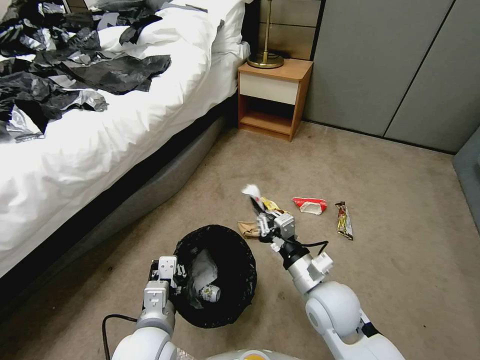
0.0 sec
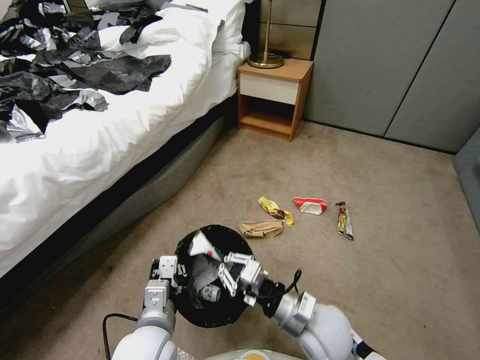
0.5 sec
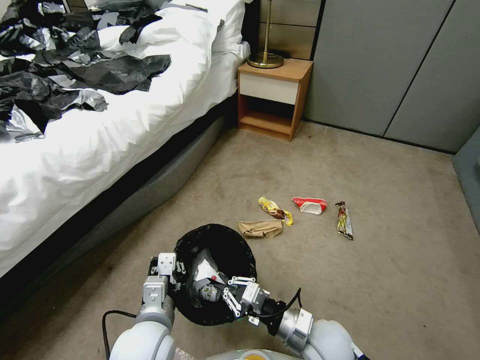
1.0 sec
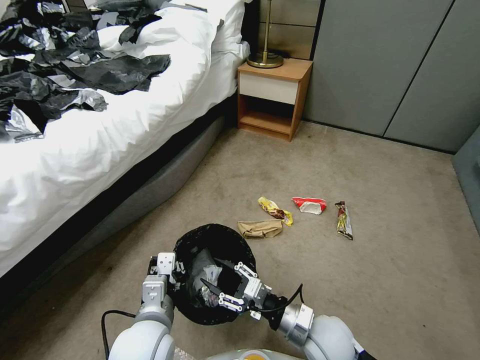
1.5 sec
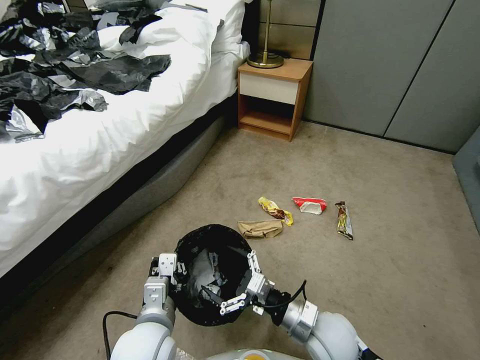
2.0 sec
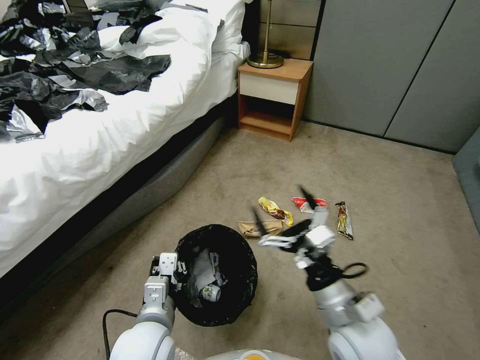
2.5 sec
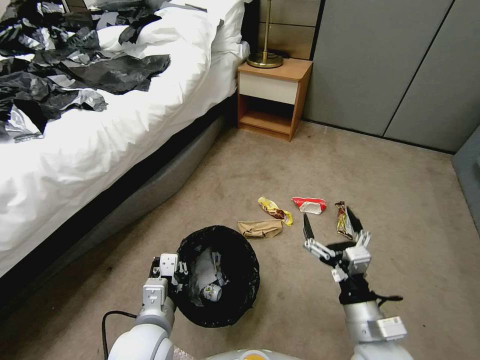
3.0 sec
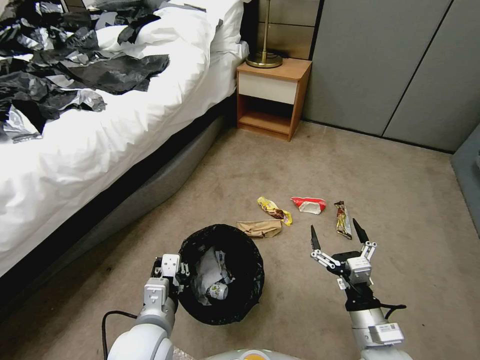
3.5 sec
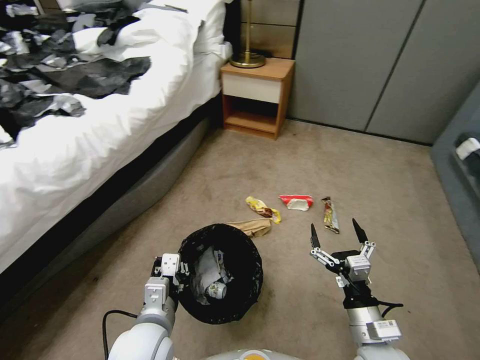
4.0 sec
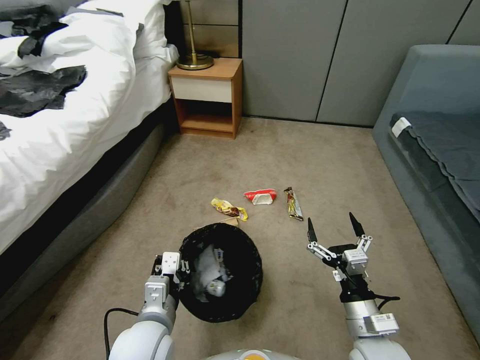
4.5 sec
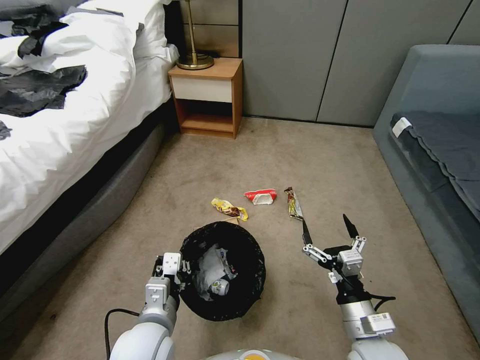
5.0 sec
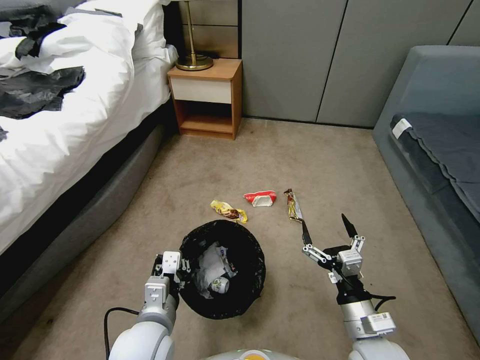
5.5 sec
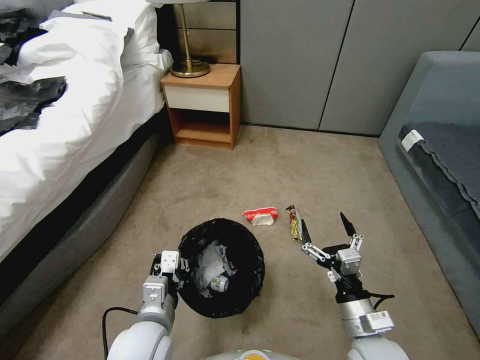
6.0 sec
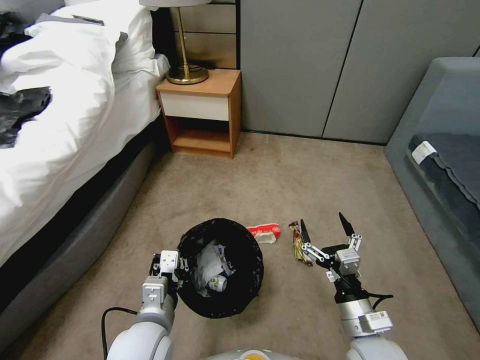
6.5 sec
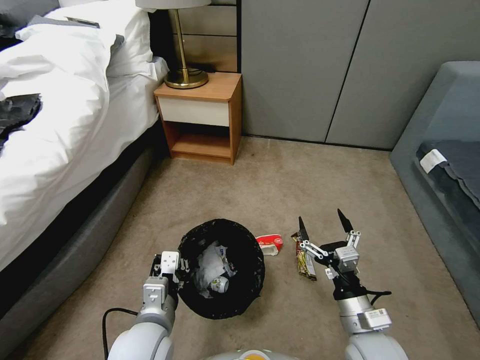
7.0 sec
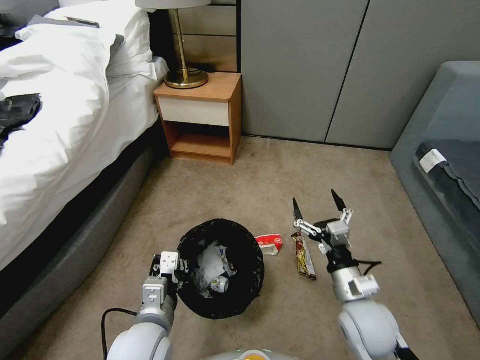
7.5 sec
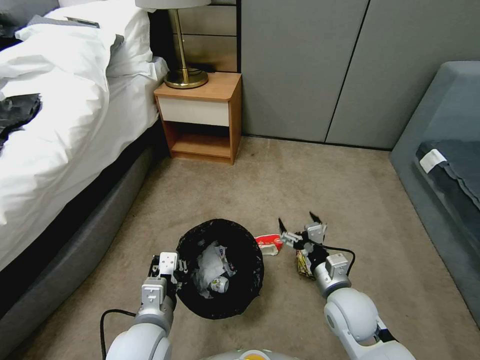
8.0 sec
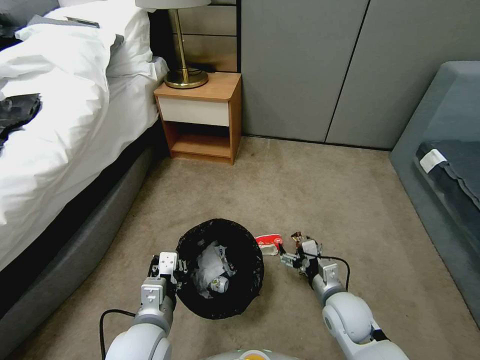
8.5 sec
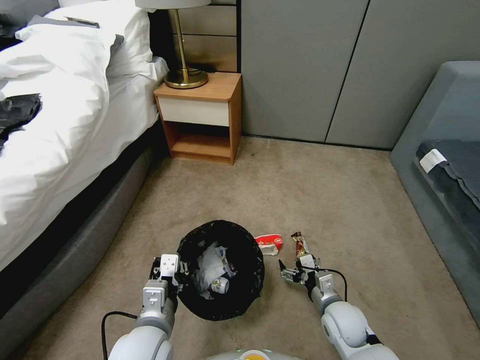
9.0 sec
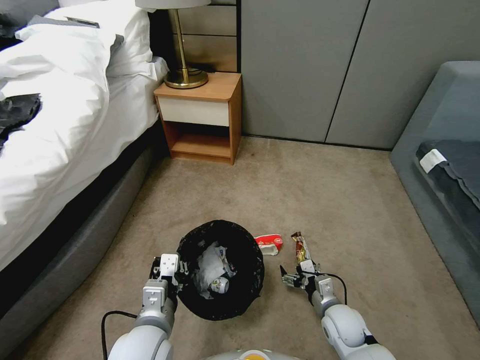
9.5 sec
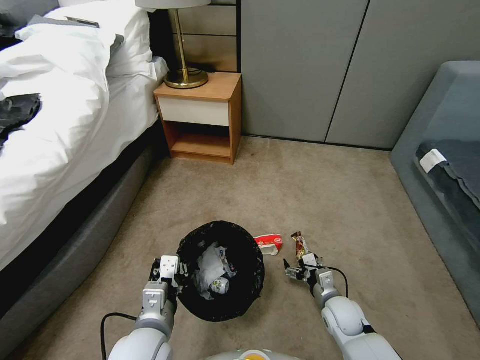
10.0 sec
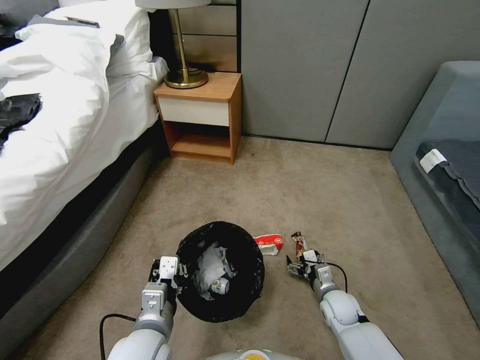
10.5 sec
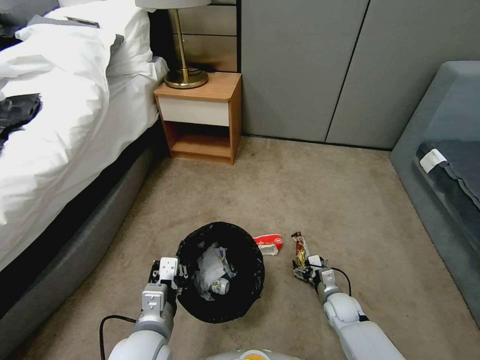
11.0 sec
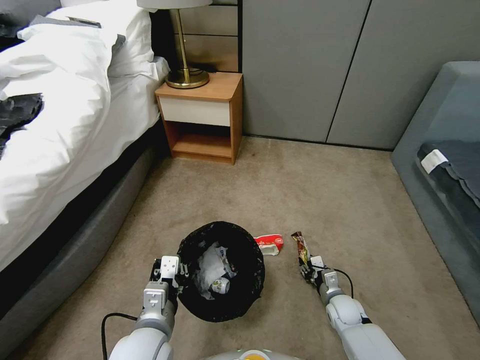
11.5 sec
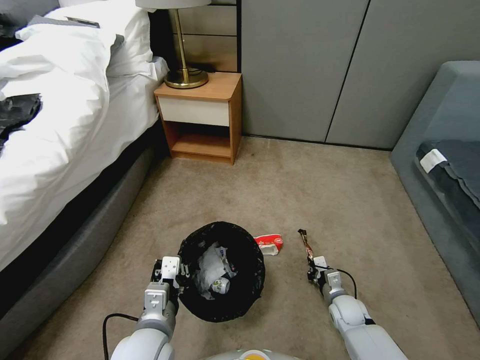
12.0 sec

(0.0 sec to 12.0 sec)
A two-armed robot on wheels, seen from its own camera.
Task of the whole recording: Pick up the trash bin, then pick up the garbage from the floor and place it into the trash bin.
0.0 sec - 2.0 sec: The right gripper is displaced downward by some 5 cm, and opens its fingers.
2.0 sec - 4.0 sec: The right gripper heads to the right, covering about 10 cm, and reaches roughly 10 cm upward, then returns.
6.0 sec - 8.0 sec: The right gripper is displaced forward by about 10 cm.
8.0 sec - 10.0 sec: The right gripper moves downward, some 15 cm.
10.0 sec - 12.0 sec: The right gripper is displaced downward by about 5 cm, and closes.

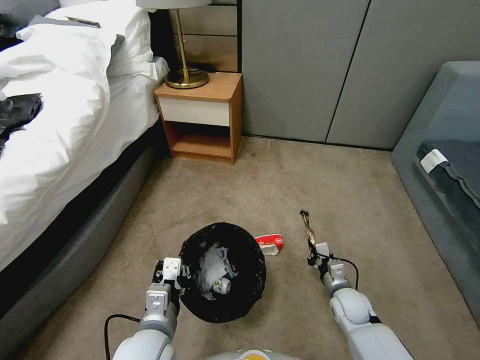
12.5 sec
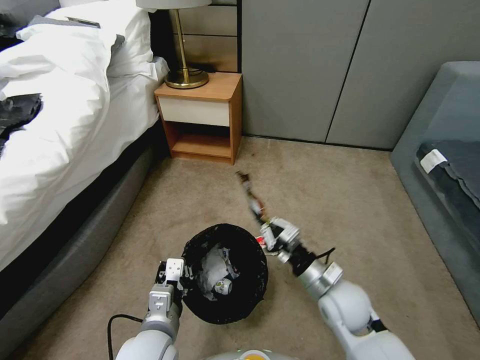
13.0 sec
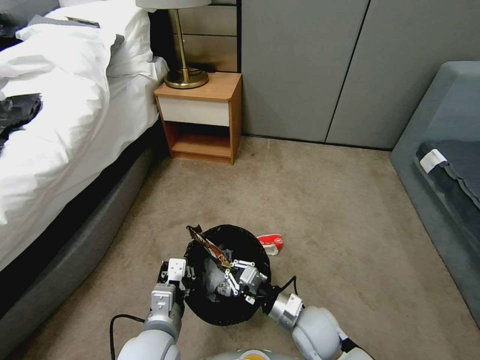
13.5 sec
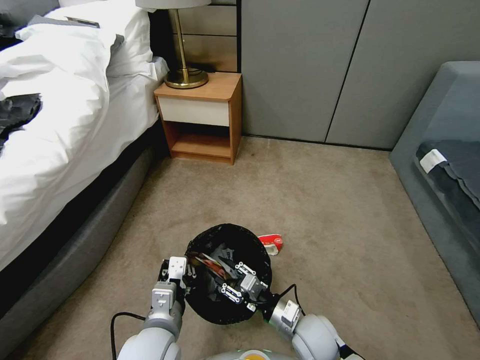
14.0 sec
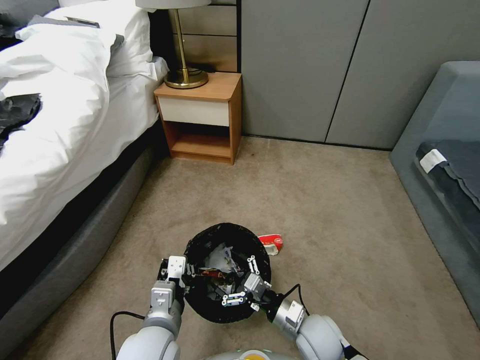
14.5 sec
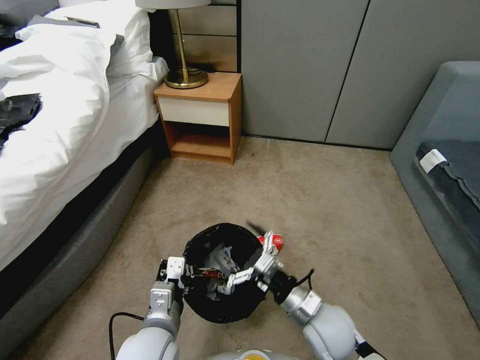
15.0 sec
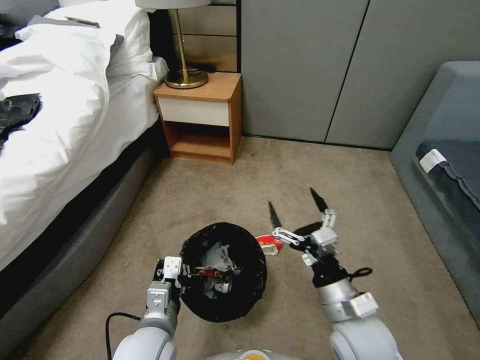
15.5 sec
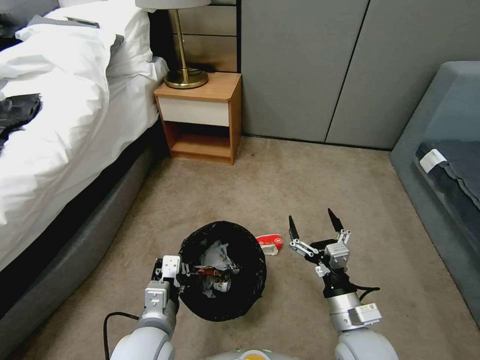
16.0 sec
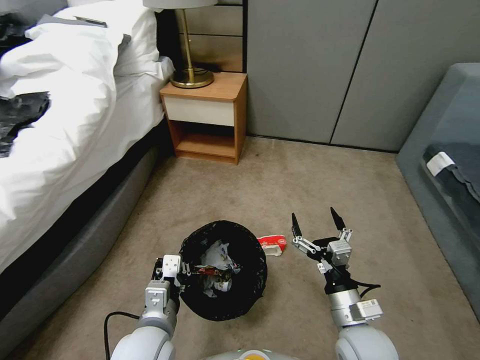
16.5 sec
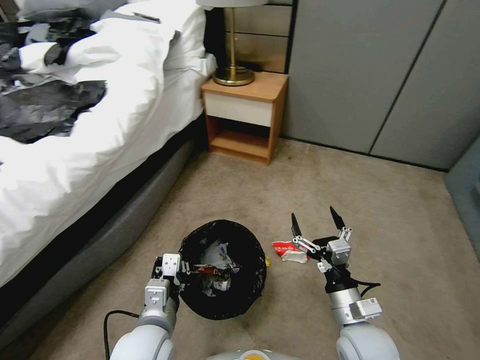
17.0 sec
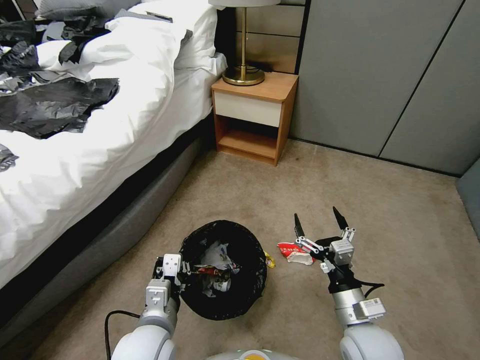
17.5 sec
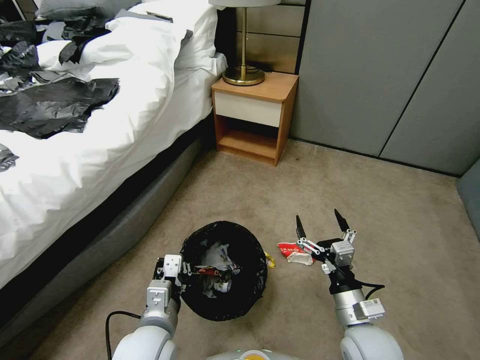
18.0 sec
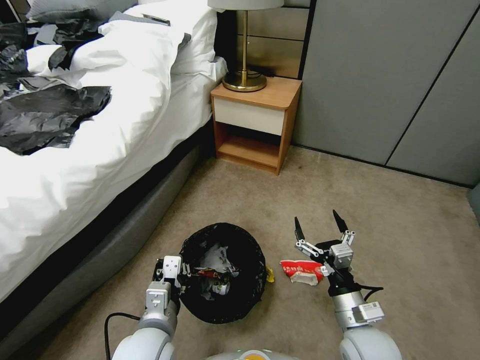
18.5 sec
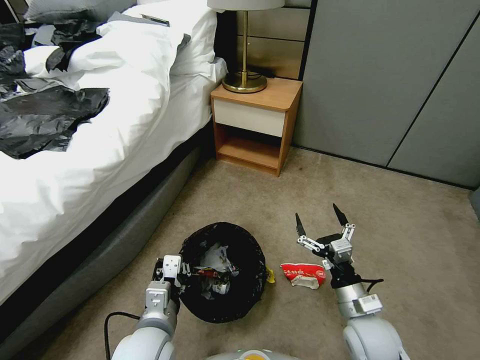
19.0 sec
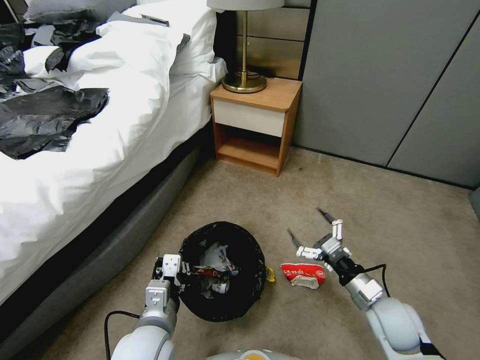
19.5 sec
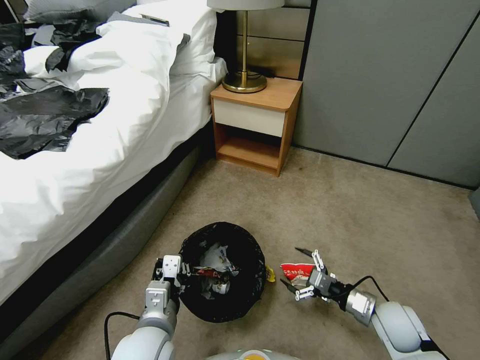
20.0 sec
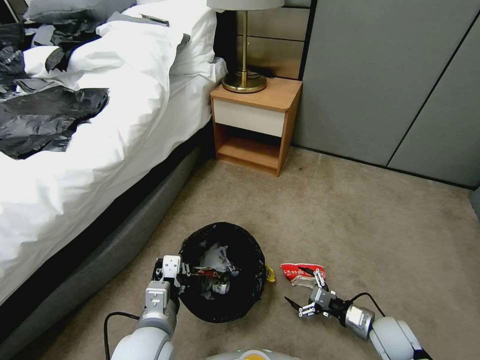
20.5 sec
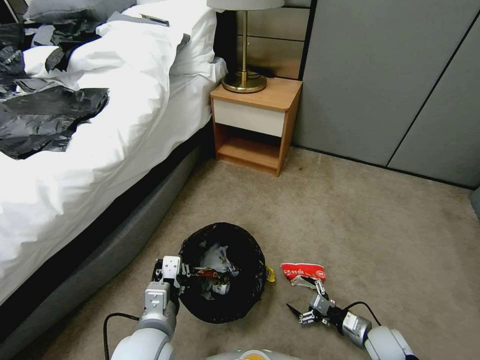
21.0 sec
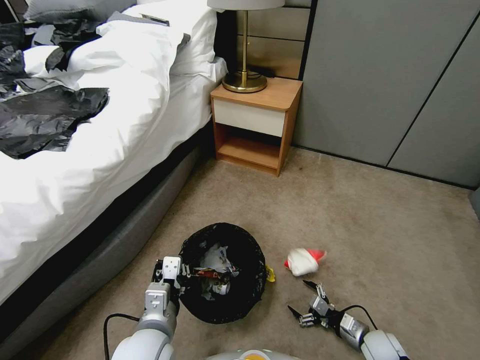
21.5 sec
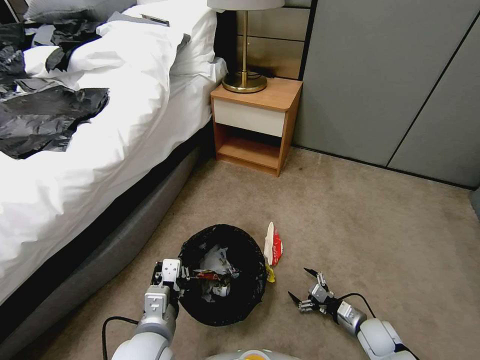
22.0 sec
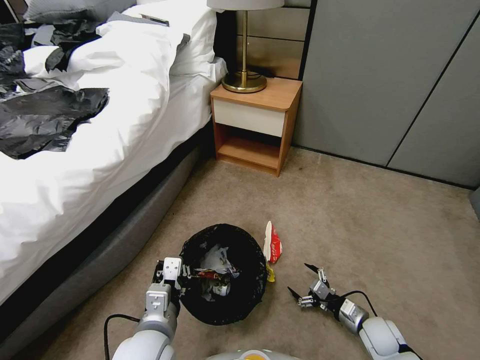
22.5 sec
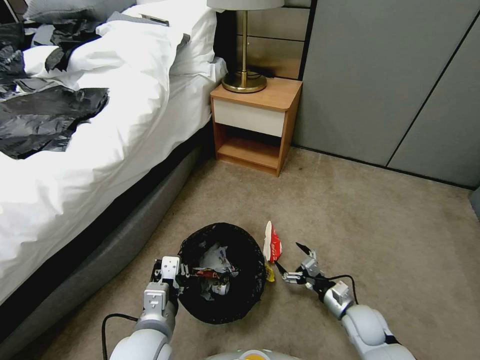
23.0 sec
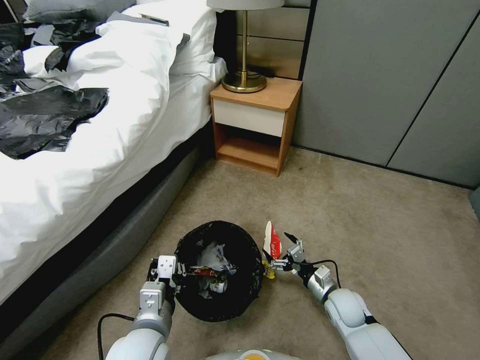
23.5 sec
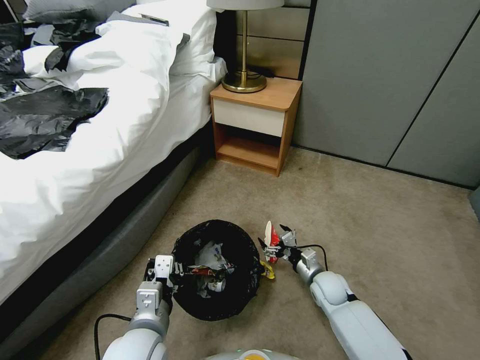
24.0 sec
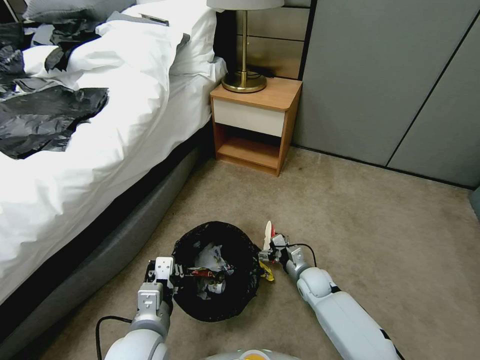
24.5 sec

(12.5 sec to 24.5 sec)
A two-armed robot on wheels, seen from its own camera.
Task of the whole recording: Pick up the trash bin, then pick up the garbage from the floor and place it into the trash bin.
12.5 sec - 14.5 sec: The right gripper heads to the left, backward and upward, covering approximately 15 cm, and opens.
14.5 sec - 16.5 sec: The right gripper heads upward and to the right, covering some 10 cm.
18.5 sec - 20.5 sec: The right gripper heads to the right and downward, covering about 20 cm.
20.5 sec - 22.5 sec: The right gripper goes about 5 cm downward.
22.5 sec - 24.5 sec: The right gripper is displaced to the left and forward by some 20 cm.

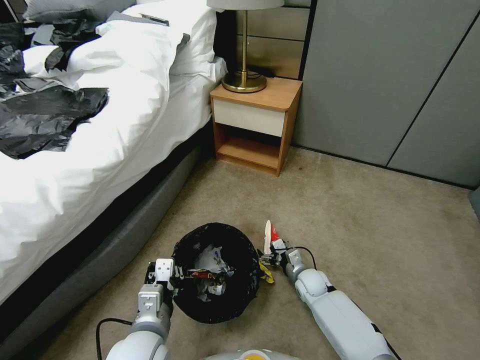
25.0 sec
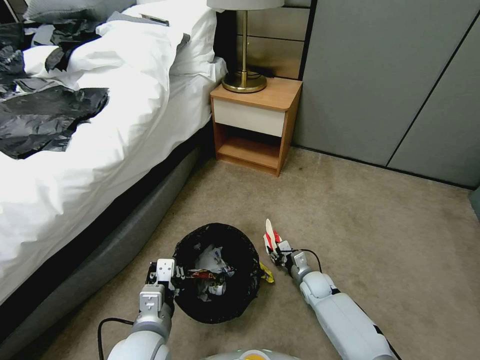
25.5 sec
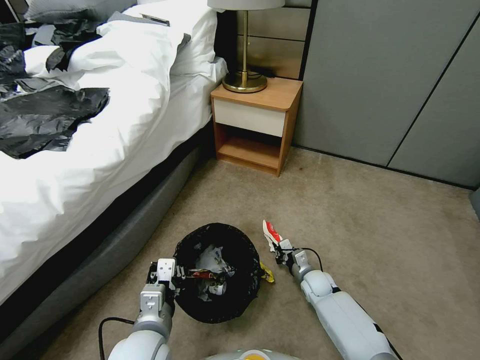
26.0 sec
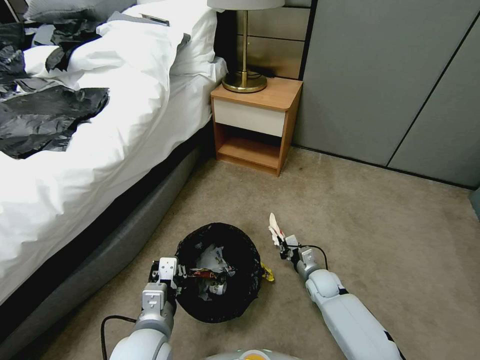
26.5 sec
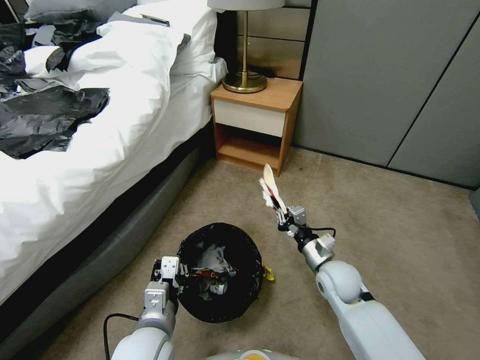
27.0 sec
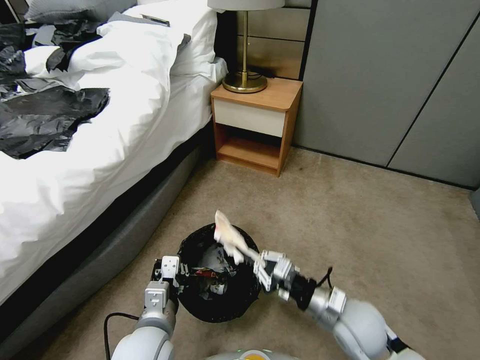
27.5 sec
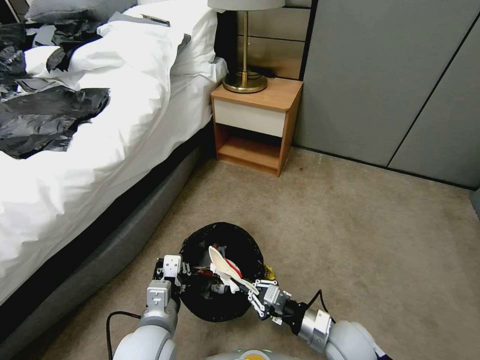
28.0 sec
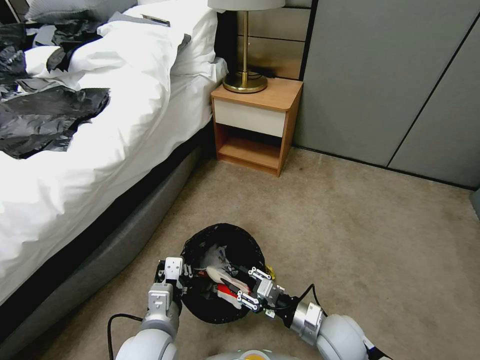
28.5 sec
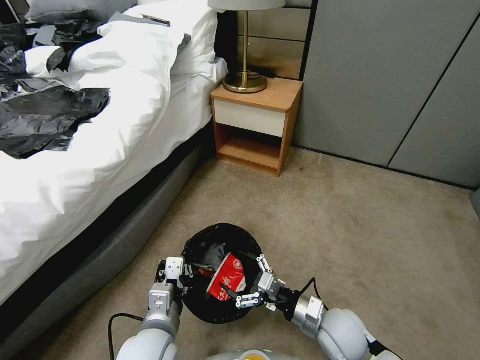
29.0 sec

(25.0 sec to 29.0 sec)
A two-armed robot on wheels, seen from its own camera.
Task of the whole recording: Pick up the trash bin, then pick up the garbage from the floor and place it into the trash bin.
25.0 sec - 27.0 sec: The right gripper heads upward, covering roughly 15 cm, and closes its fingers.
27.0 sec - 29.0 sec: The right gripper heads backward, covering approximately 10 cm, and opens up.
